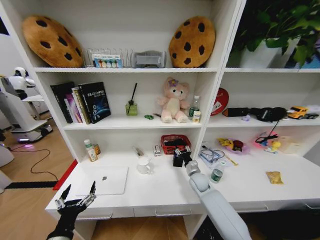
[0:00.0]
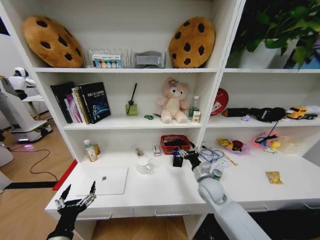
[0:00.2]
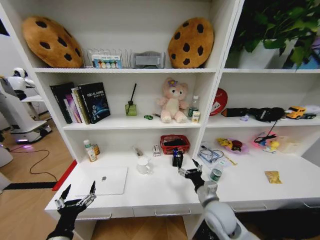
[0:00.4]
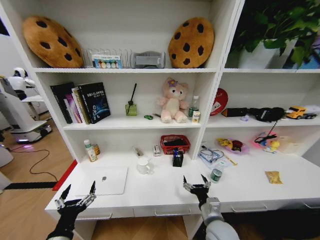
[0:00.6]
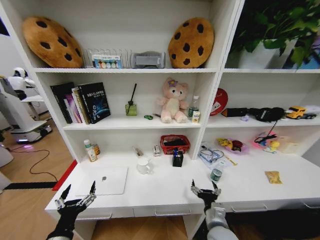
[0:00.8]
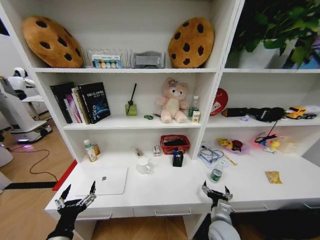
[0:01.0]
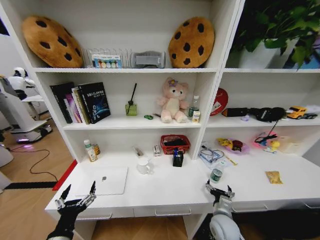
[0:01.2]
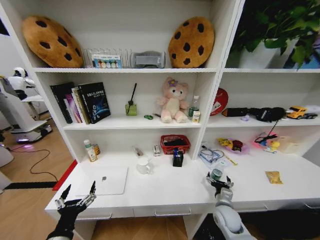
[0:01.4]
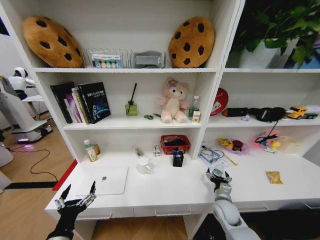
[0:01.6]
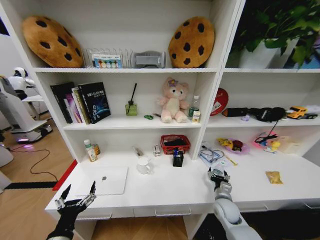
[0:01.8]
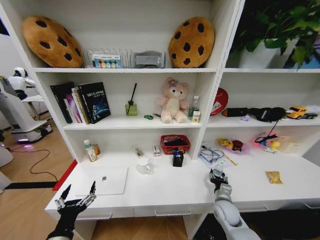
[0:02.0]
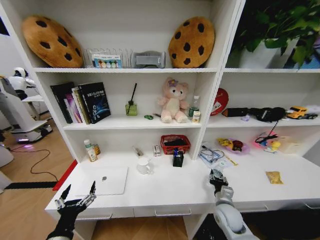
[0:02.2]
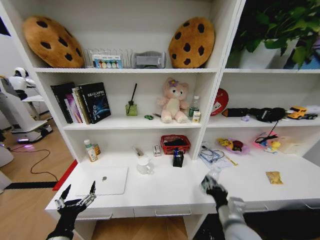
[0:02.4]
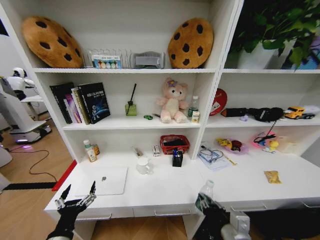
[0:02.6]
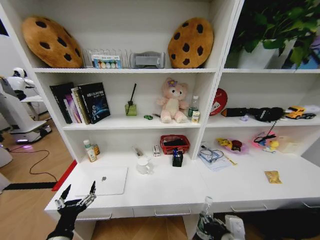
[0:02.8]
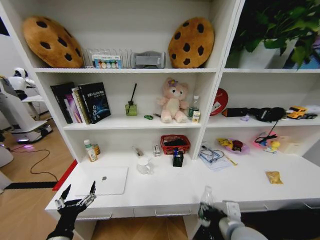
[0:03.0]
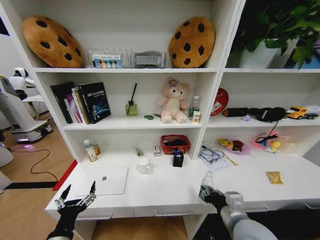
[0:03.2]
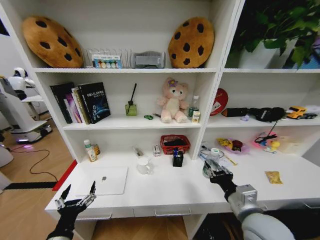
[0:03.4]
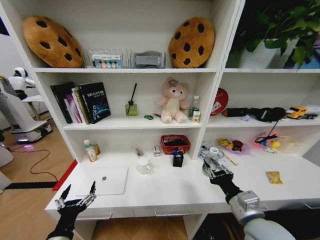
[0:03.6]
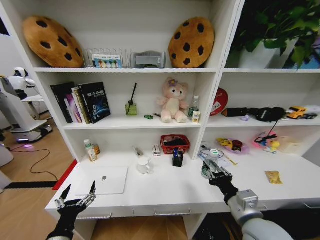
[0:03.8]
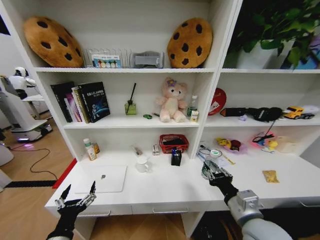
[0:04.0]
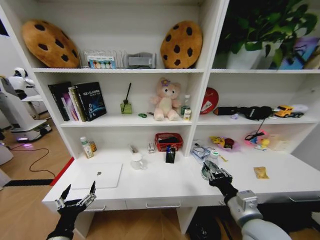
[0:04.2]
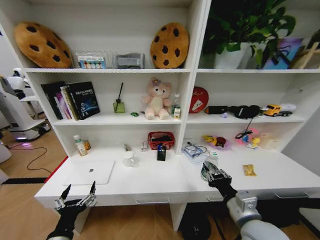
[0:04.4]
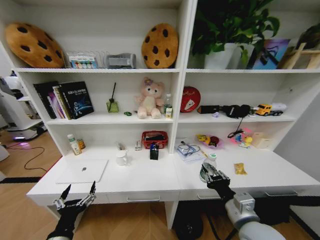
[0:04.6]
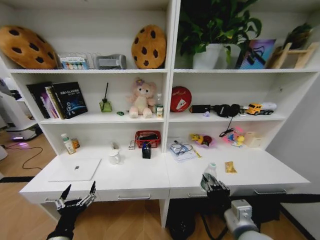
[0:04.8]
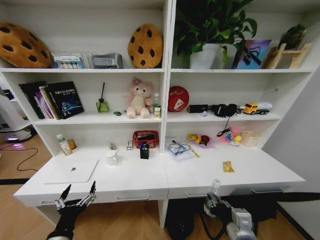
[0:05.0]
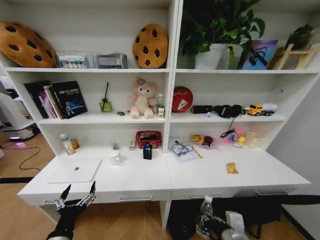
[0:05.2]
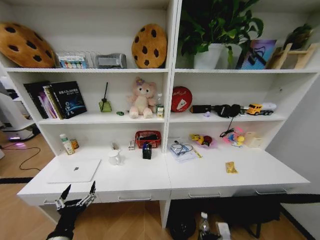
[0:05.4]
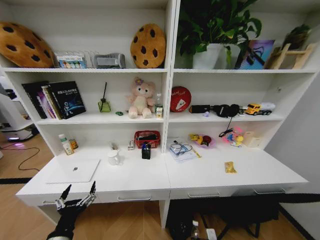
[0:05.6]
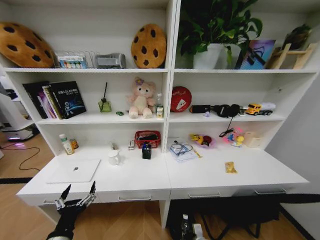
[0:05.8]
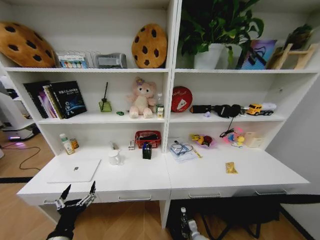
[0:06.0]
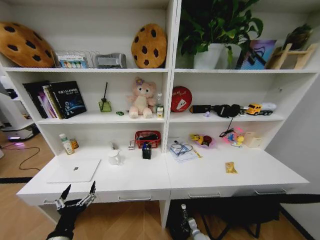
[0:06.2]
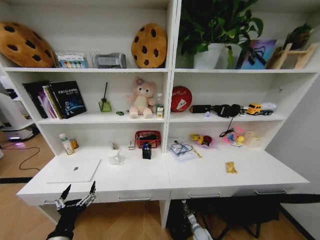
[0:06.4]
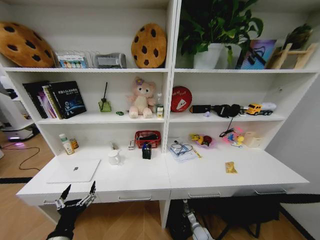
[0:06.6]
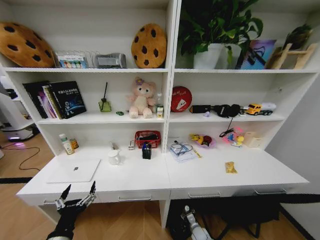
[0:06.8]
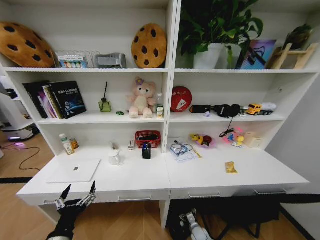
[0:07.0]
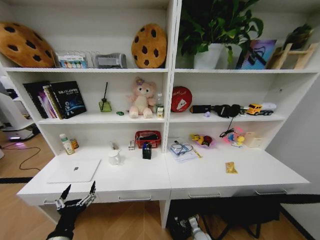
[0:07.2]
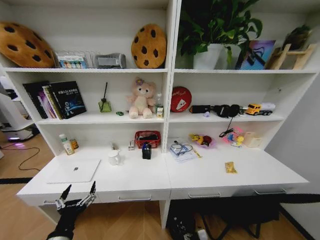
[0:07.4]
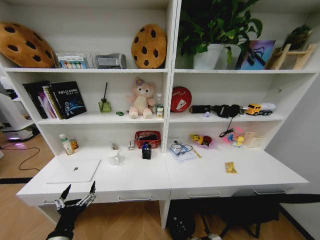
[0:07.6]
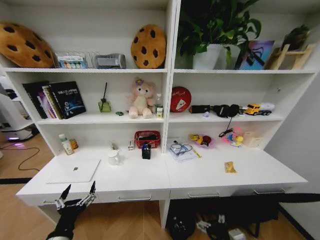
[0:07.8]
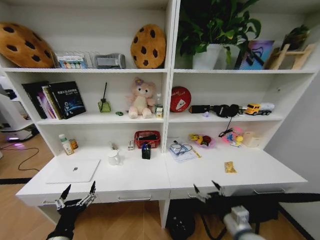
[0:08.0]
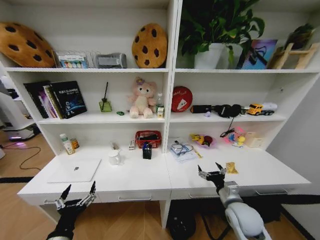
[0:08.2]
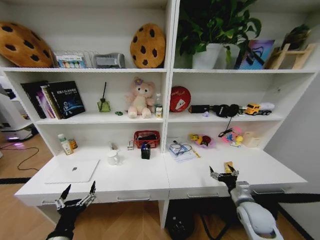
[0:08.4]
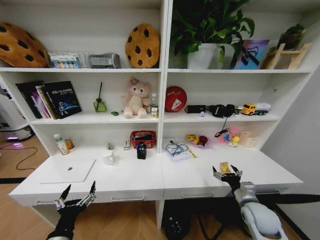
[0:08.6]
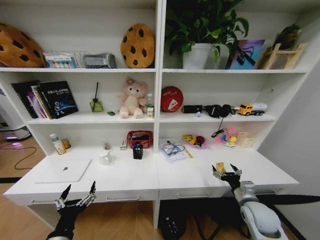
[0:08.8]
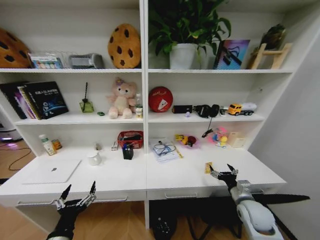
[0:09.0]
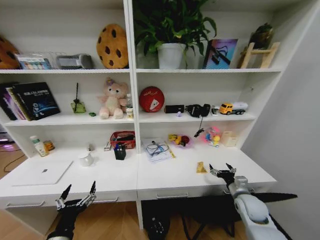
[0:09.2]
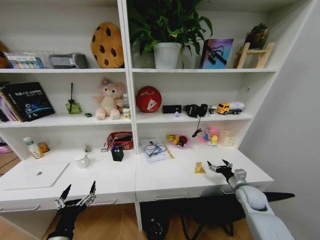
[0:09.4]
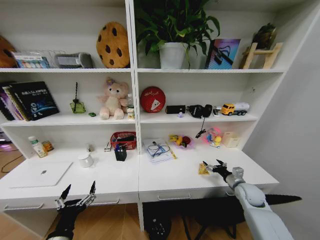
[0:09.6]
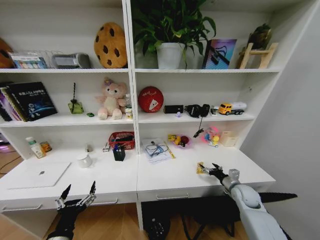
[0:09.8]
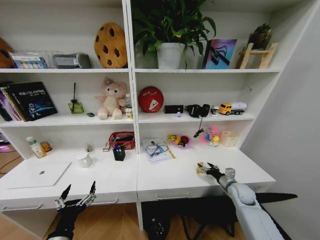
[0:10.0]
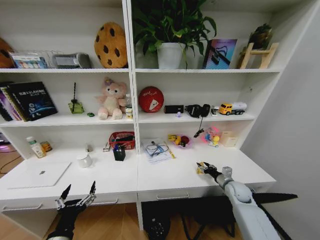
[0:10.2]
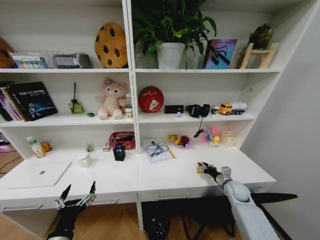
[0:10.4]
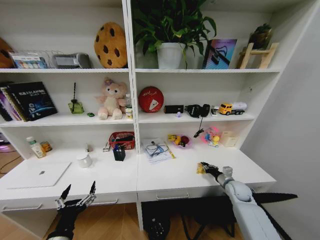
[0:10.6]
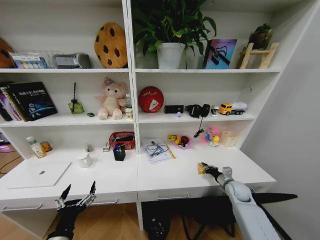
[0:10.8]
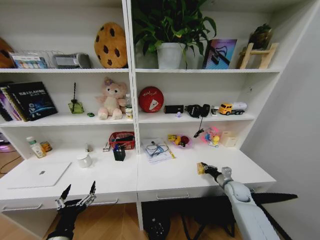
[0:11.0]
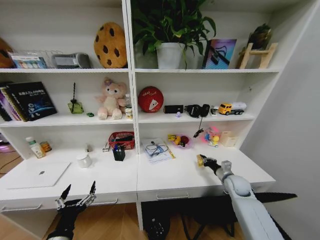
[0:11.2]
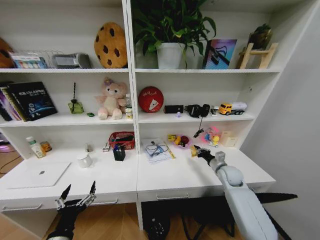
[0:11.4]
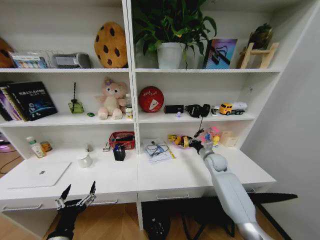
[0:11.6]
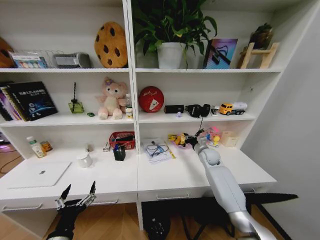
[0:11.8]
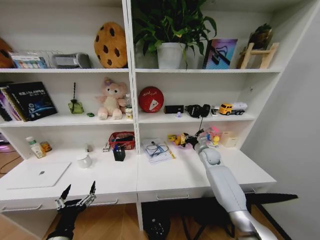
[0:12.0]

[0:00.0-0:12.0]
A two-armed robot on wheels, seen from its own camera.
Task of the whole recording: Organize the objects on the table.
0:00.0 to 0:01.6: The right gripper heads backward and to the right, covering approximately 15 cm, and opens up.
0:01.6 to 0:03.0: The right gripper travels upward, backward and to the left by some 25 cm, and closes up.
0:04.4 to 0:06.0: The right gripper moves downward, roughly 40 cm.
0:06.0 to 0:07.6: The right gripper shifts about 15 cm upward and backward, and opens.
0:07.6 to 0:09.0: The right gripper moves upward, forward and to the right, approximately 25 cm.
0:09.0 to 0:10.4: The right gripper heads forward and downward, covering roughly 10 cm, and closes.
0:10.4 to 0:12.0: The right gripper shifts roughly 20 cm forward, to the left and upward, and closes.

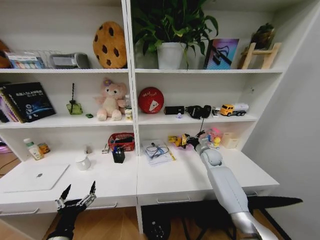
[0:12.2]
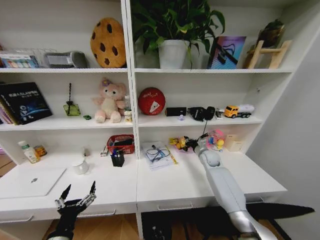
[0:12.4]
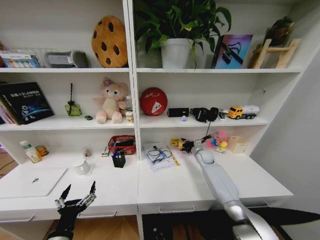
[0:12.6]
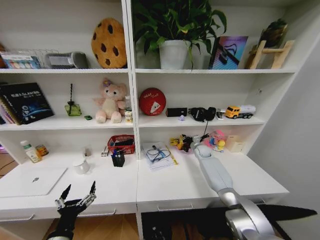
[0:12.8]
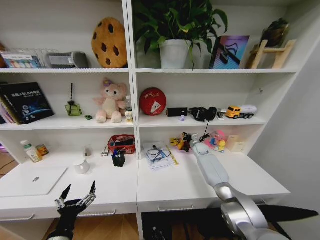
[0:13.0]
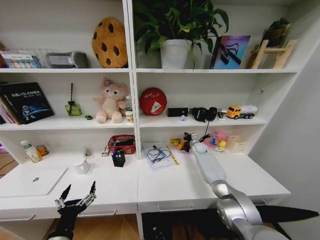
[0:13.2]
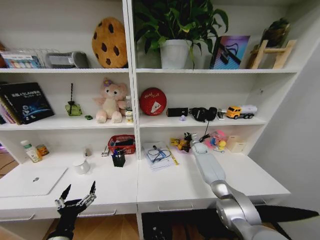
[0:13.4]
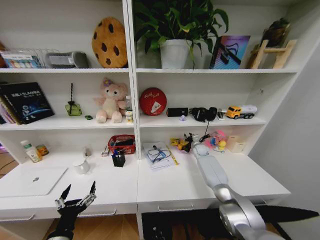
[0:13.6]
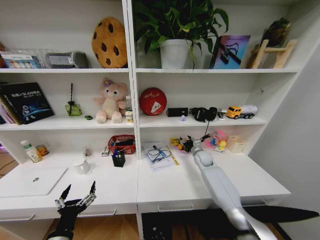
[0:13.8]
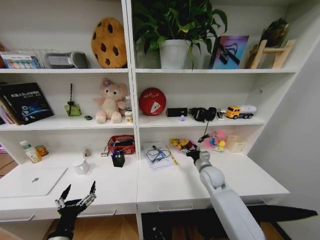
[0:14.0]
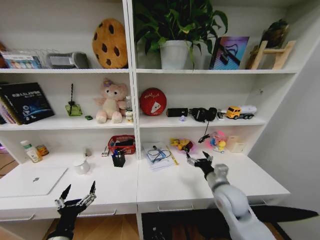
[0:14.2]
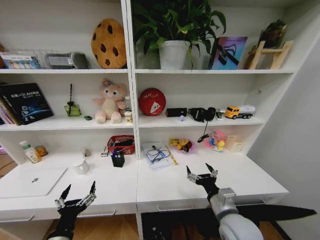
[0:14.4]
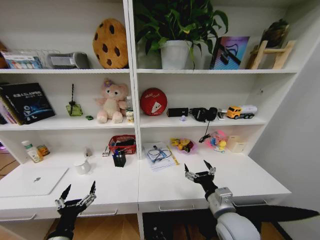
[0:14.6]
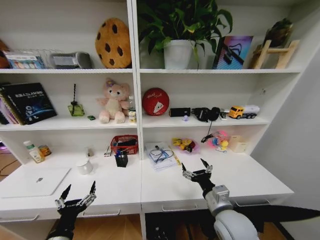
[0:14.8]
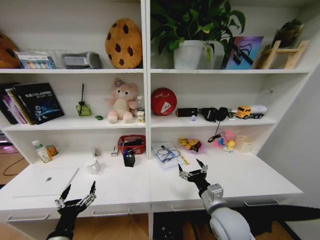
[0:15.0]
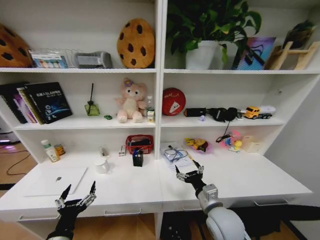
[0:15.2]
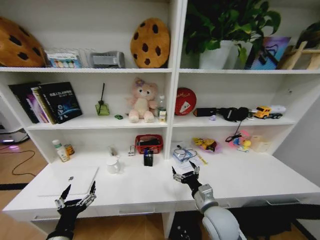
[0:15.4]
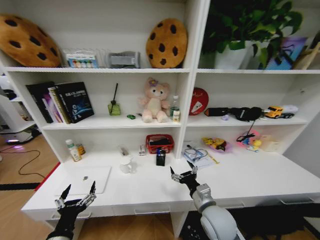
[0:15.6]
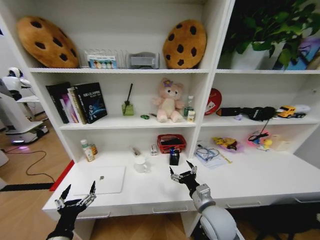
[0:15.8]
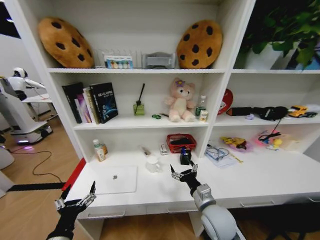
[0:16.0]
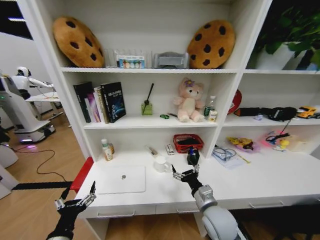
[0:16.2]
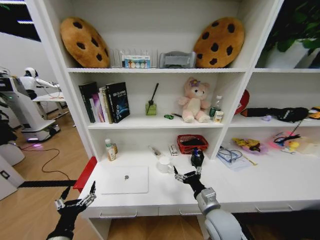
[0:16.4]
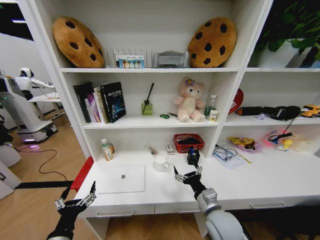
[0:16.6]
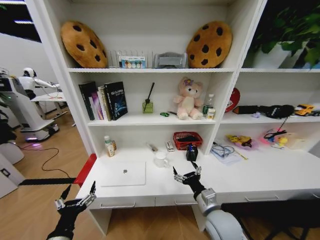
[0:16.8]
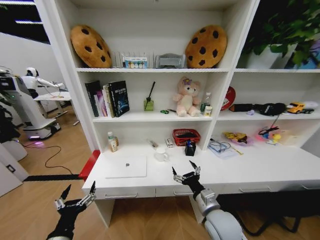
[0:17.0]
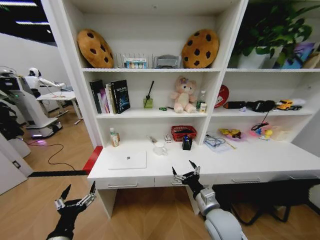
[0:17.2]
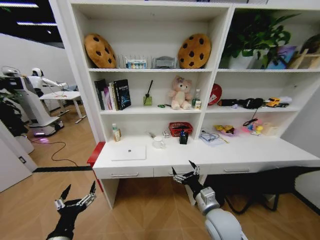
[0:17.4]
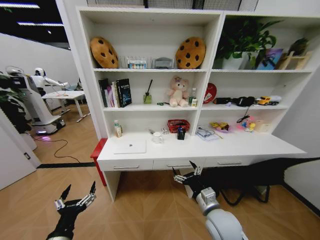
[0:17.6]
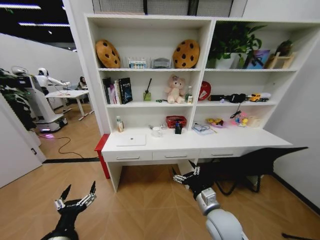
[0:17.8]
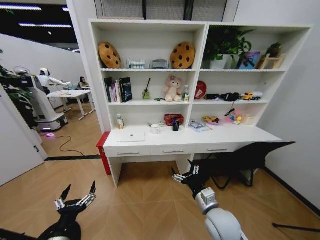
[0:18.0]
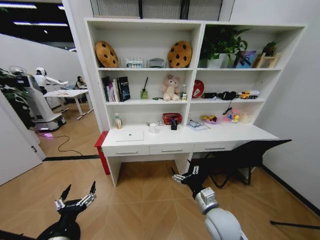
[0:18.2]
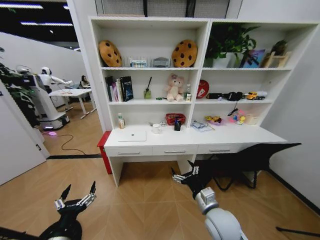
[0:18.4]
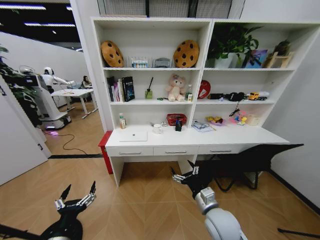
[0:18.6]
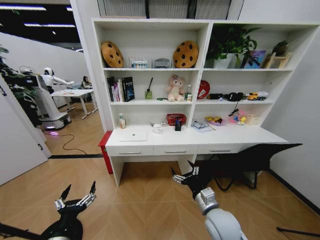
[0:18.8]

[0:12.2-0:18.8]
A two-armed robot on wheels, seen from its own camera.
Task of the whole recording: Organize the objects on the table.
0:12.2 to 0:13.8: The right gripper travels forward and back again, roughly 10 cm each way, and opens.
0:13.8 to 0:15.4: The right gripper goes approximately 30 cm backward, and opens.
